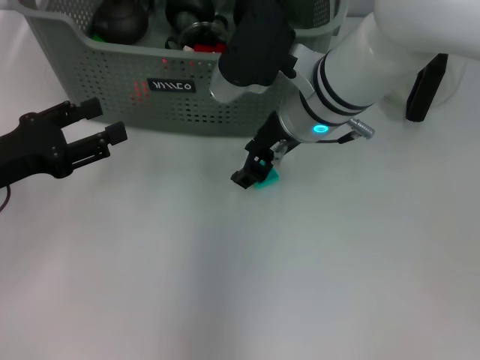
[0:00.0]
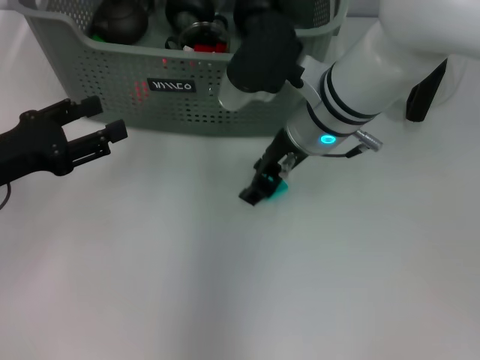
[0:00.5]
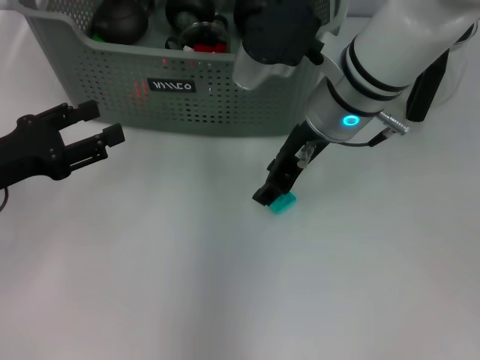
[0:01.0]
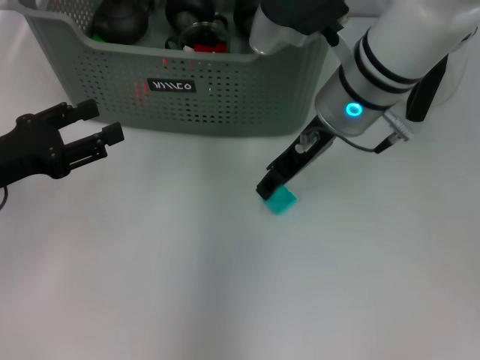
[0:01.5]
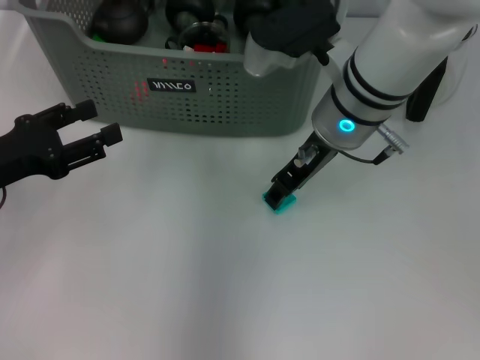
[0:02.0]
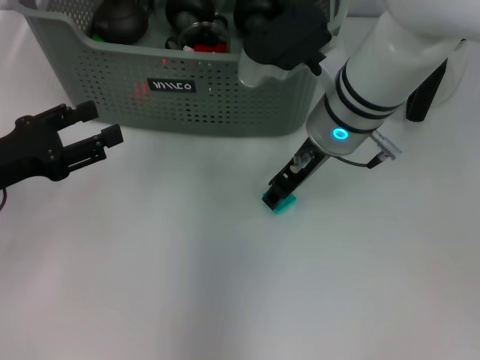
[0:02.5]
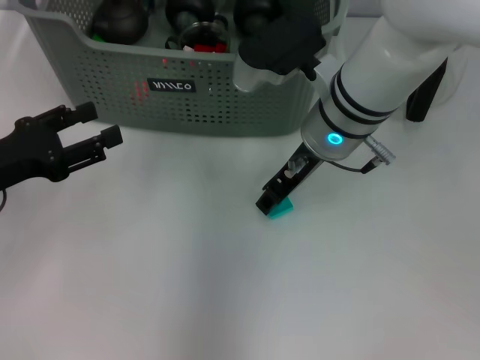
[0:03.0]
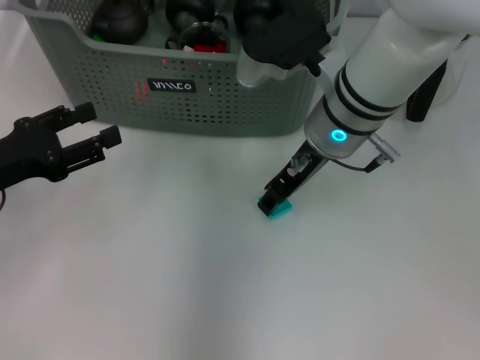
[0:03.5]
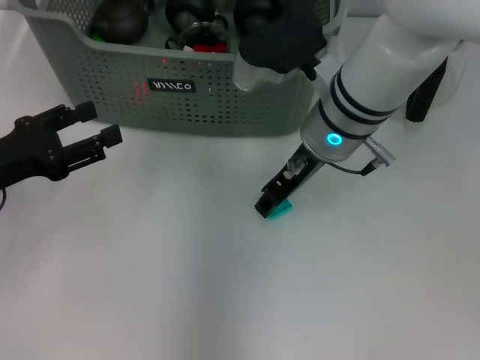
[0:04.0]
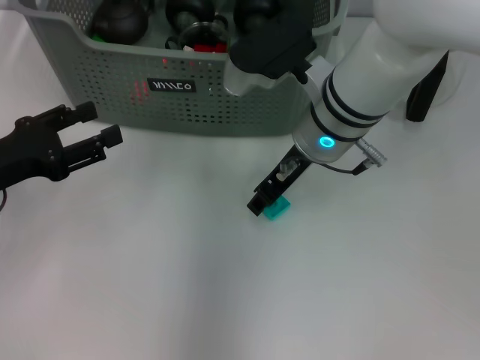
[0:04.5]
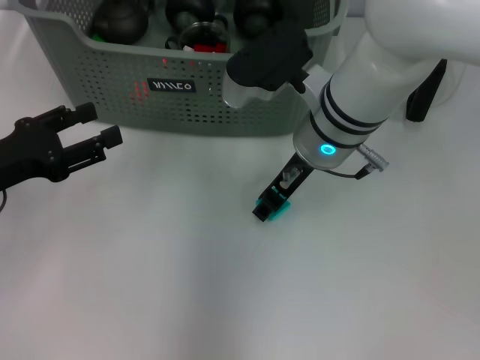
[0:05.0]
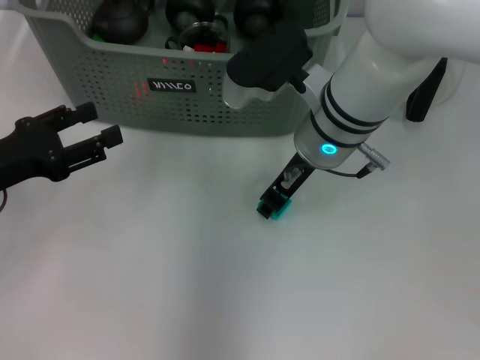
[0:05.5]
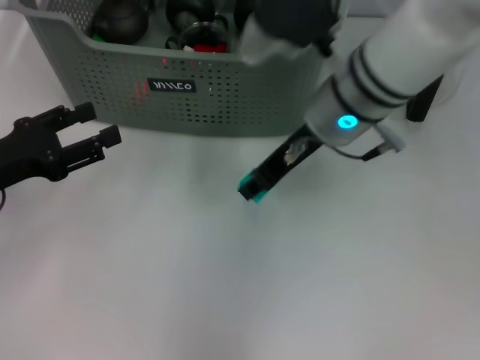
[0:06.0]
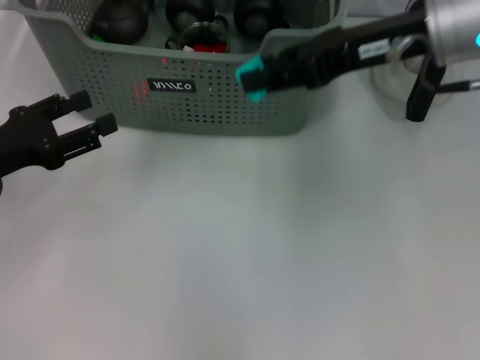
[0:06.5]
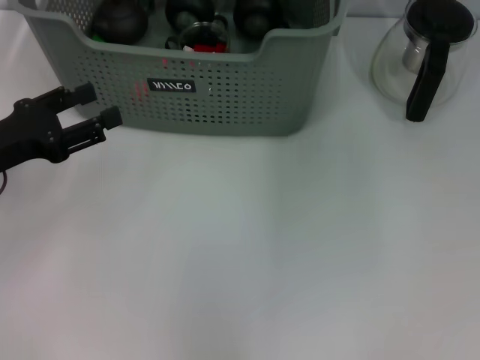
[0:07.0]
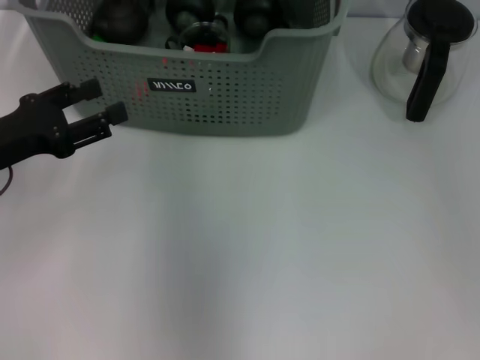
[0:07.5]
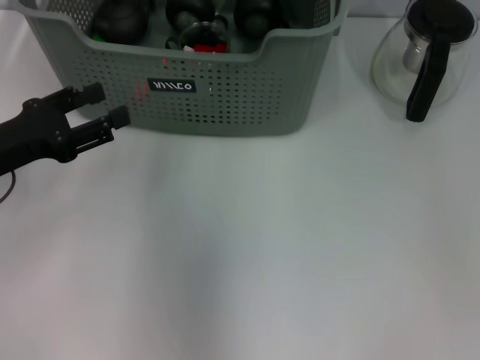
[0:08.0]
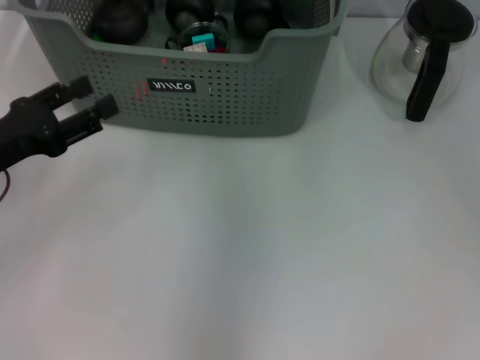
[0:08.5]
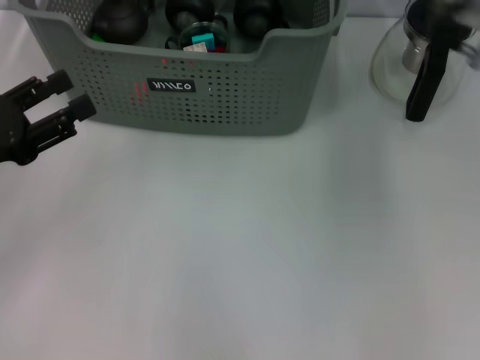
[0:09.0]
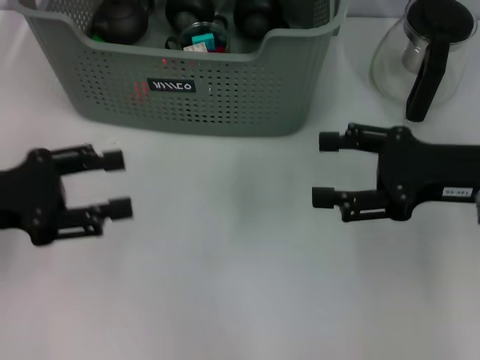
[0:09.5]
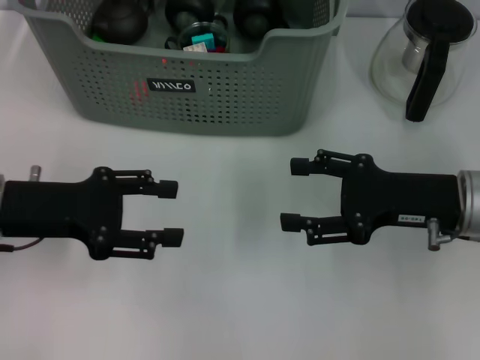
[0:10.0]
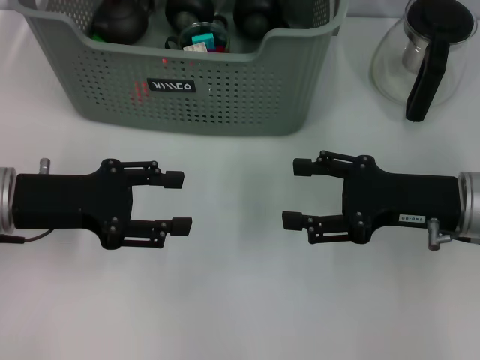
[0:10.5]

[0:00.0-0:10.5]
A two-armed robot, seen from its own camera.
Task of the whole recording: pick up the teacup on the table and place it into the storage bin, pick up the block on the table and place it into the storage bin.
Step, 0:00.0 to 0:05.0: Grasp the light blue block with right gripper.
Step, 0:06.0 to 0:08.0: Place the light blue block in the storage box with right gripper.
0:02.0 to 0:04.0: There are only small adjustments of the grippers.
0:04.0 to 0:06.5: The right gripper heads upward and to the right, covering approximately 15 cm.
0:06.5 to 0:08.5: The right gripper moves to the left and forward, approximately 15 cm, and opens up.
0:08.5 to 0:10.5: The right gripper moves downward, to the right and backward, roughly 30 cm.
